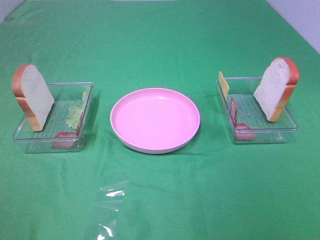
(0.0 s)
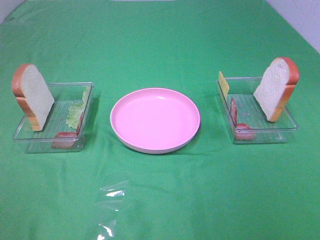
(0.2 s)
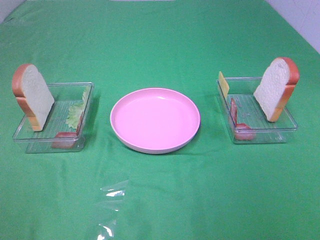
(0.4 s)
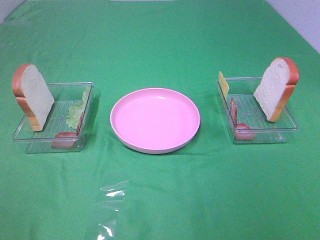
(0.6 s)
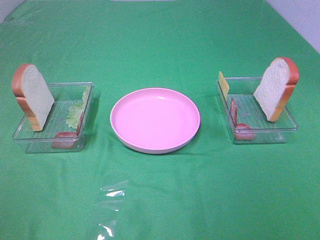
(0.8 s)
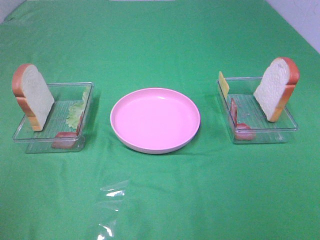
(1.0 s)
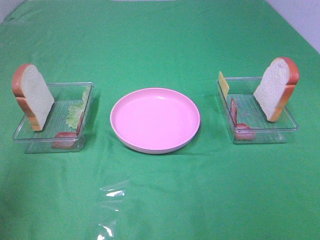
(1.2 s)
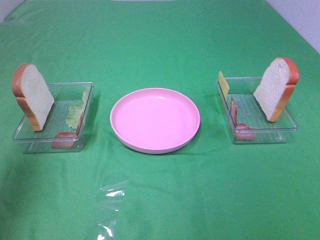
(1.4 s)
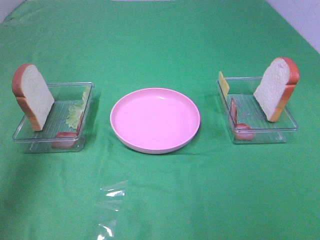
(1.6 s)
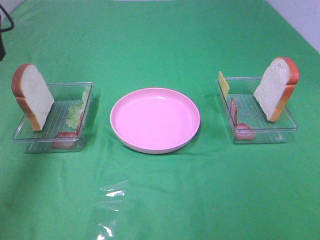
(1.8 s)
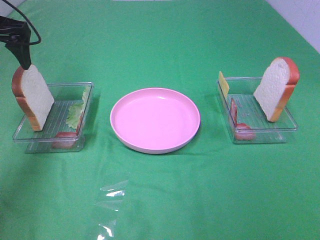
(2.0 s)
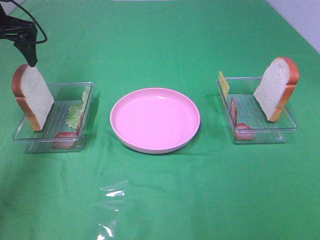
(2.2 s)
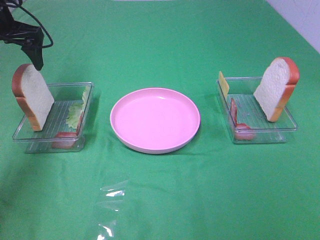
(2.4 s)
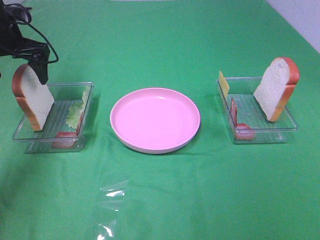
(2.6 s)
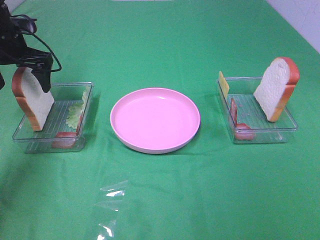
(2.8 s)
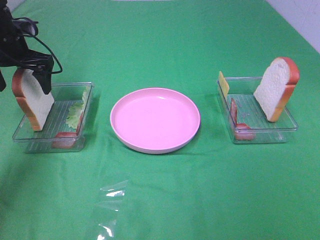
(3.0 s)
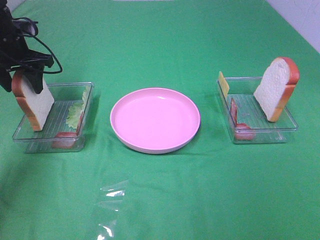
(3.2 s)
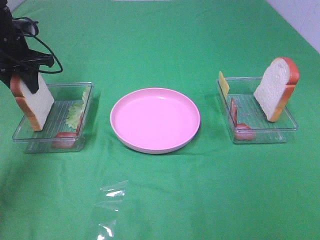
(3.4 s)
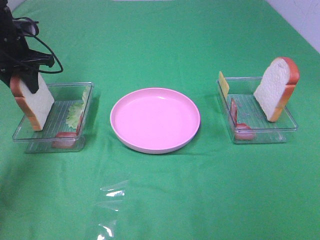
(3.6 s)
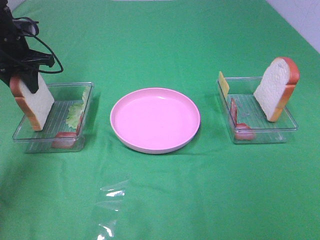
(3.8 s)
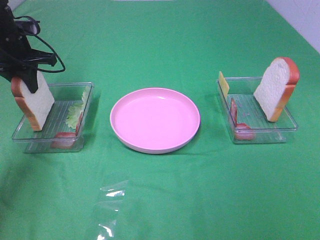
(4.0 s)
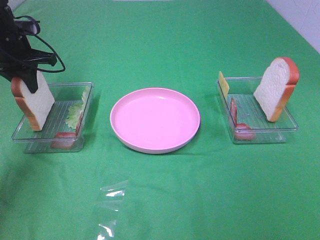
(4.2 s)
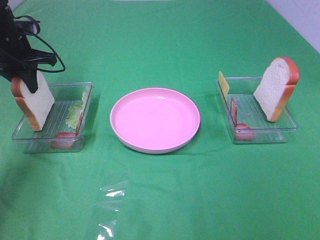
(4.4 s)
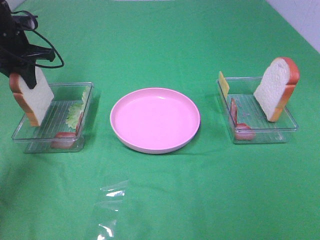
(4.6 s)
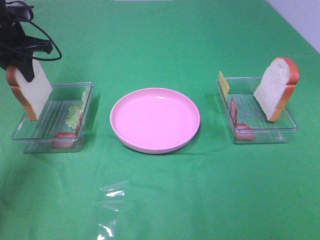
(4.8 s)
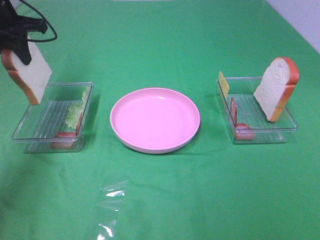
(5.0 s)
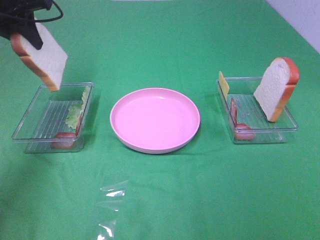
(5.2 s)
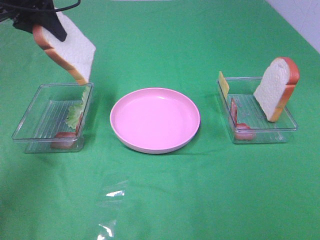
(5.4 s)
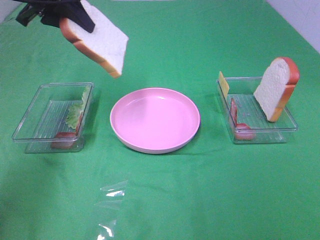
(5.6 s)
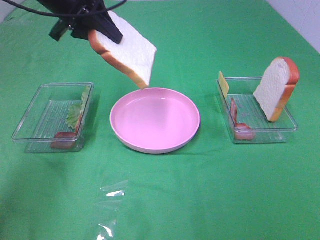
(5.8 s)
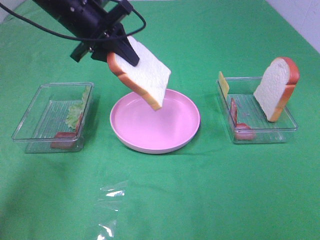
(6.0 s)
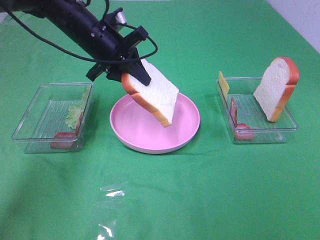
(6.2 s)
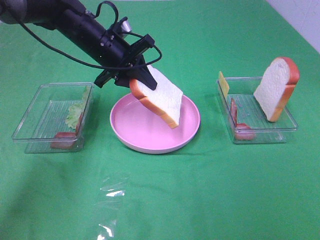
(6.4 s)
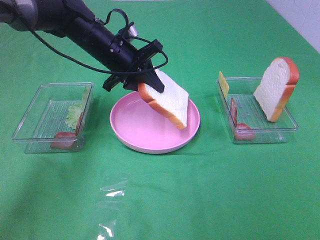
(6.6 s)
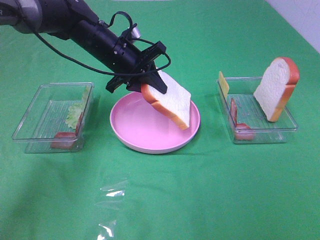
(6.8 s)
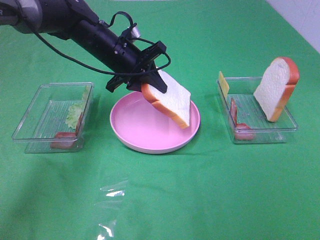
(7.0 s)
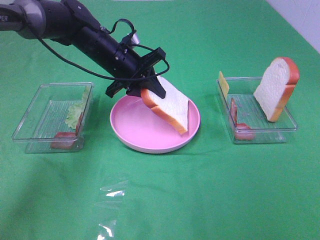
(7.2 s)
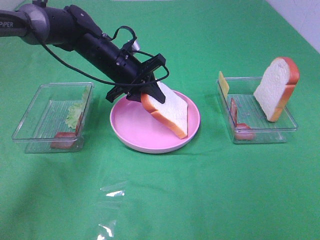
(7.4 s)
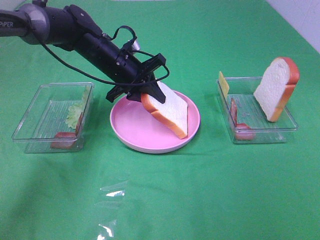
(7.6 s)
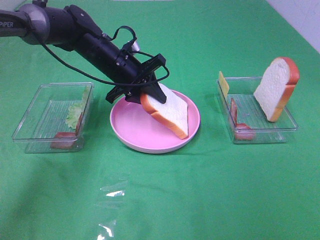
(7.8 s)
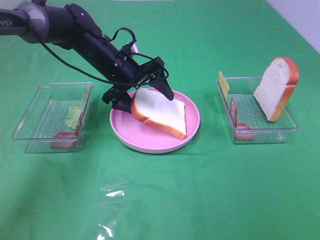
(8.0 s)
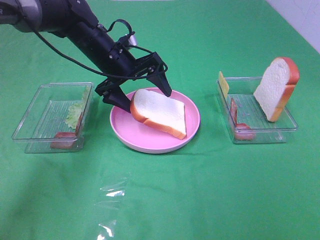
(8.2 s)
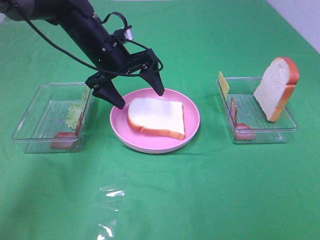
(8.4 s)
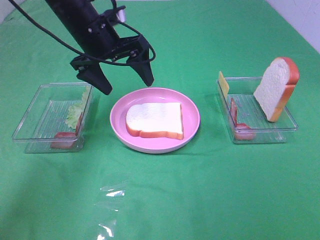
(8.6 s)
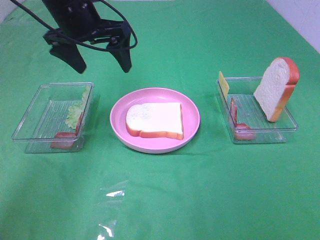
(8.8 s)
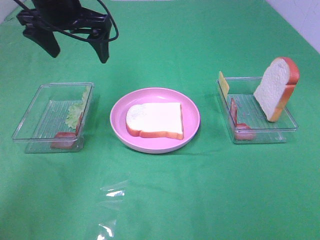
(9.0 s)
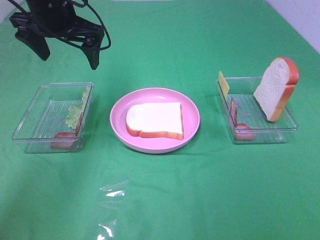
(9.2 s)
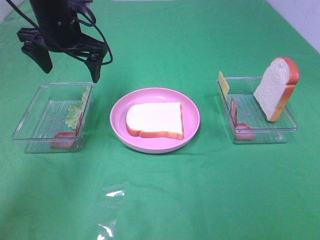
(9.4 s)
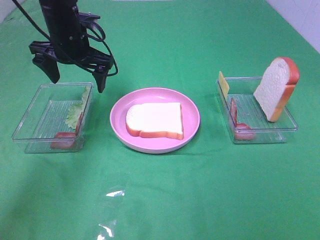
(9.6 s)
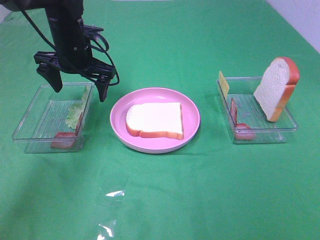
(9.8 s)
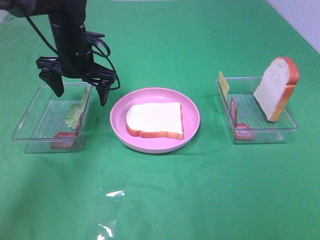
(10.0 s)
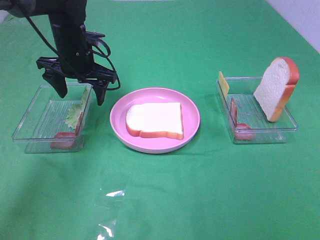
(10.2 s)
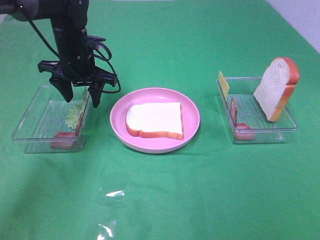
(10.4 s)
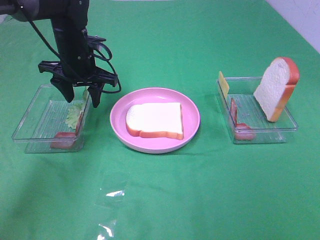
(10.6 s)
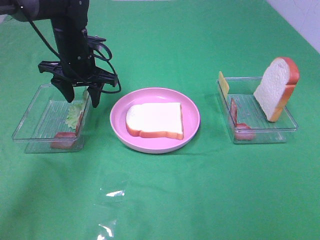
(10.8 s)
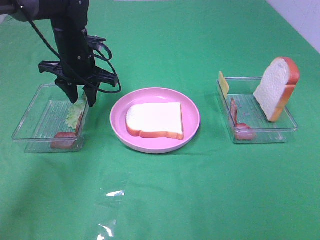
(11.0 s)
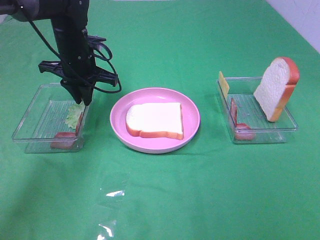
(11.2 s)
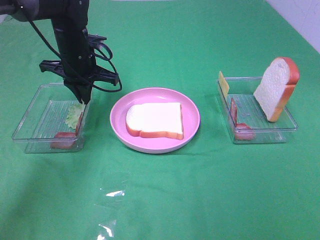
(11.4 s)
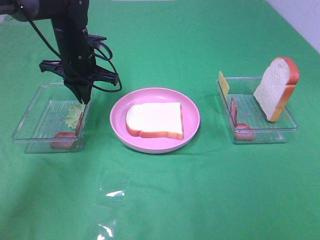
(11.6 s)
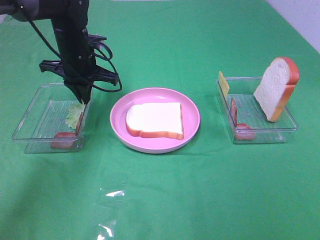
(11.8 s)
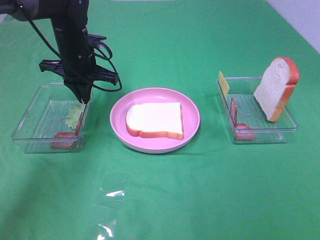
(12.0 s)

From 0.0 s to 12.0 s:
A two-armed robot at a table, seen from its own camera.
Task of the whole recording: Make sandwiches.
Step, from 0.0 s to 4.0 s: Left hand:grab the bread slice.
Step, from 4.2 s to 8.4 s: Left hand:place the bread slice on the plate.
Step, from 8.6 s to 11.6 s: Left hand:grab the lettuce slice.
From 0.0 s to 1.6 s: The left gripper heads forward, covering roughly 30 cm.
From 1.6 s to 3.0 s: The left gripper shifts approximately 20 cm forward and downward.
From 3.0 s to 4.4 s: The left gripper closes.
From 4.4 s to 6.0 s: The left gripper is displaced to the right by approximately 15 cm.
From 6.0 s to 7.6 s: The left gripper moves downward, approximately 10 cm.
From 7.6 s to 9.0 s: The left gripper shifts some 15 cm upward and to the left, and opens.
From 9.0 s to 10.4 s: The left gripper travels downward by about 10 cm, and closes its fingers.
From 10.4 s to 12.0 s: The left gripper closes up.

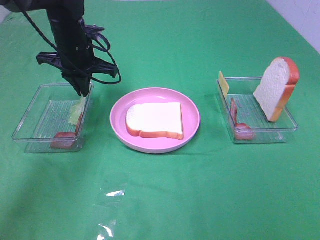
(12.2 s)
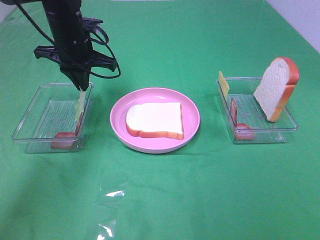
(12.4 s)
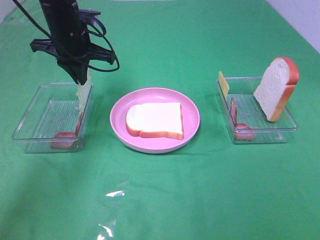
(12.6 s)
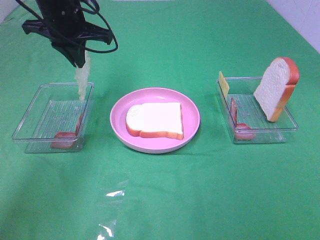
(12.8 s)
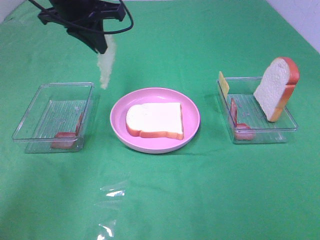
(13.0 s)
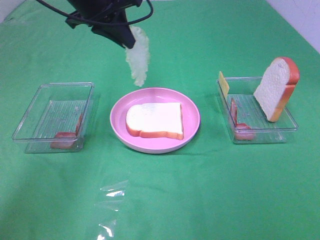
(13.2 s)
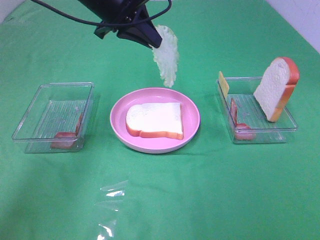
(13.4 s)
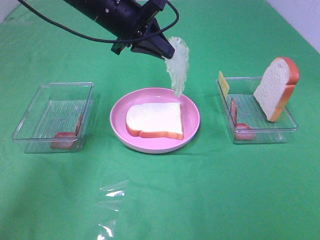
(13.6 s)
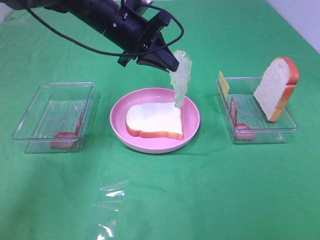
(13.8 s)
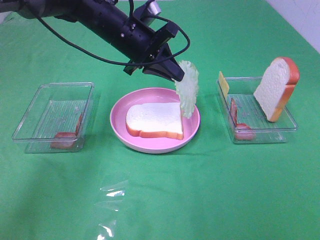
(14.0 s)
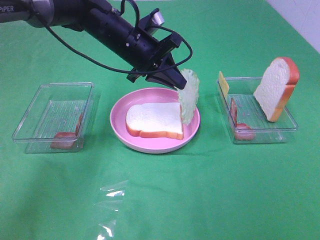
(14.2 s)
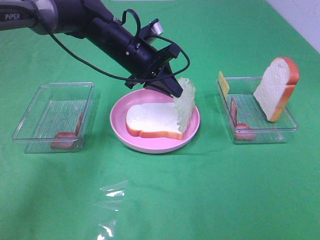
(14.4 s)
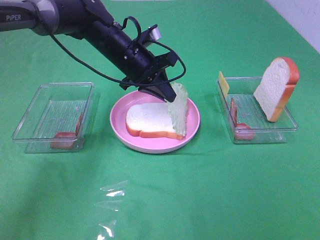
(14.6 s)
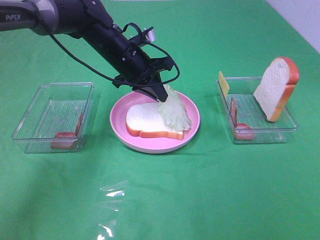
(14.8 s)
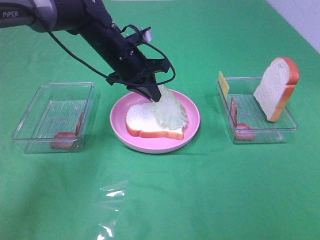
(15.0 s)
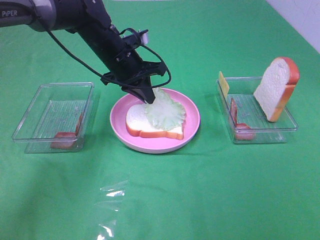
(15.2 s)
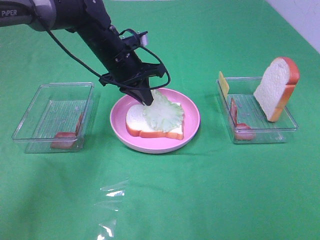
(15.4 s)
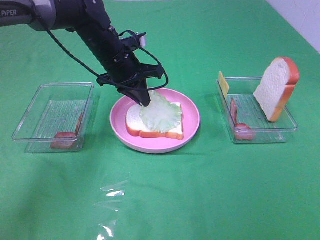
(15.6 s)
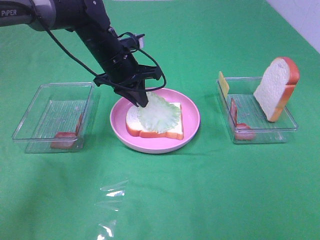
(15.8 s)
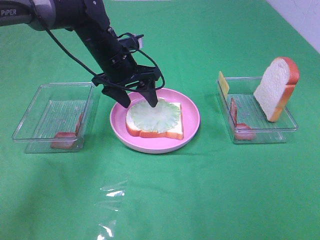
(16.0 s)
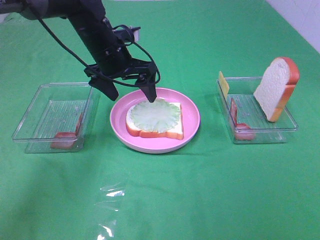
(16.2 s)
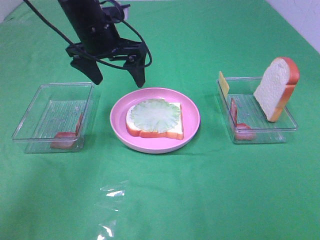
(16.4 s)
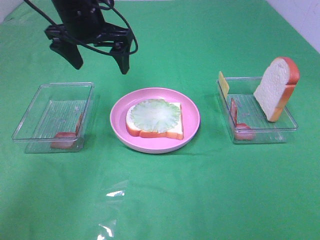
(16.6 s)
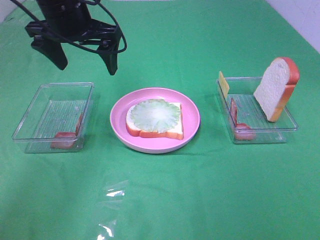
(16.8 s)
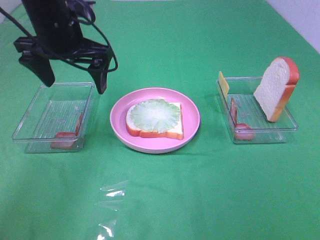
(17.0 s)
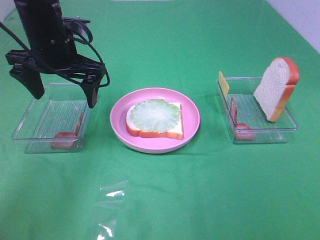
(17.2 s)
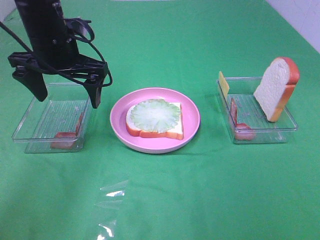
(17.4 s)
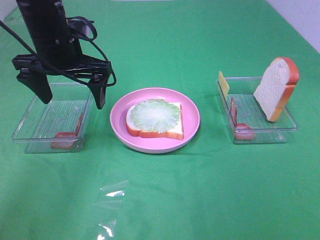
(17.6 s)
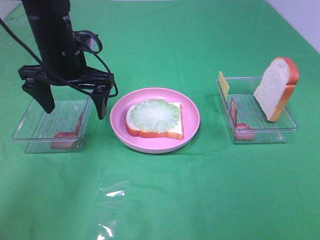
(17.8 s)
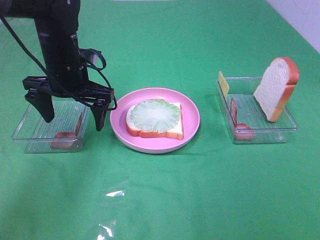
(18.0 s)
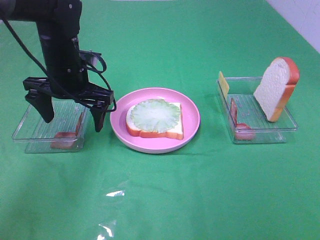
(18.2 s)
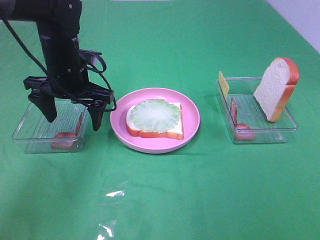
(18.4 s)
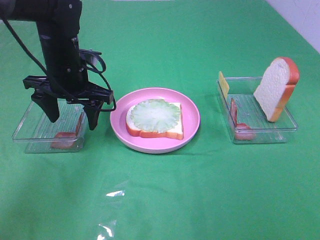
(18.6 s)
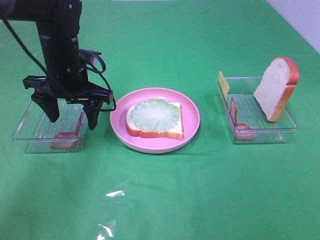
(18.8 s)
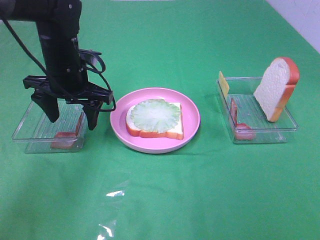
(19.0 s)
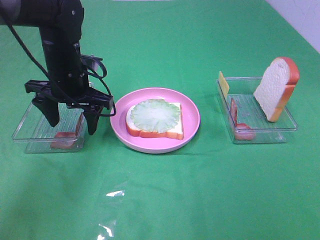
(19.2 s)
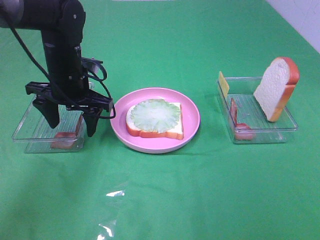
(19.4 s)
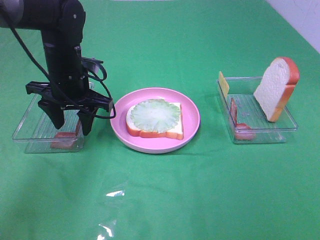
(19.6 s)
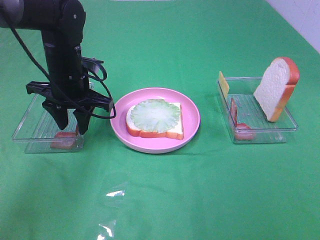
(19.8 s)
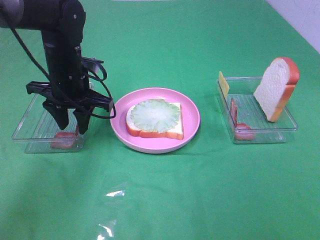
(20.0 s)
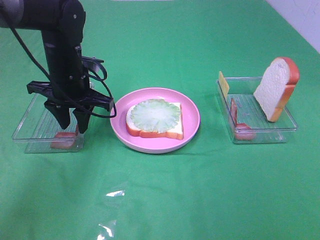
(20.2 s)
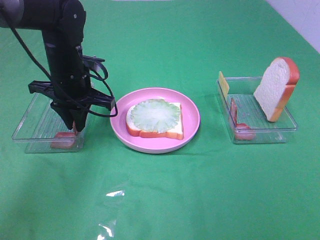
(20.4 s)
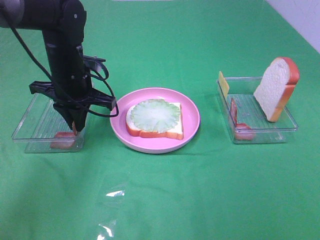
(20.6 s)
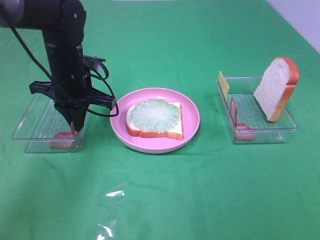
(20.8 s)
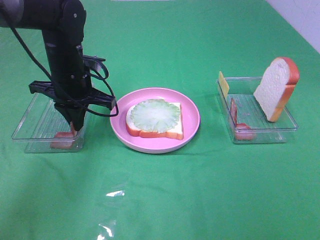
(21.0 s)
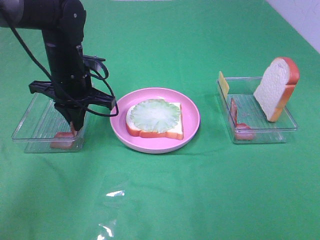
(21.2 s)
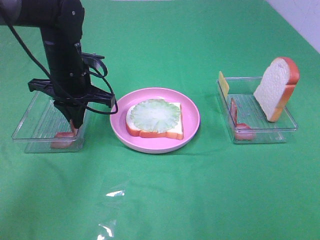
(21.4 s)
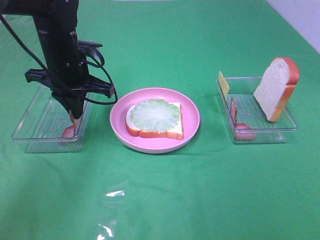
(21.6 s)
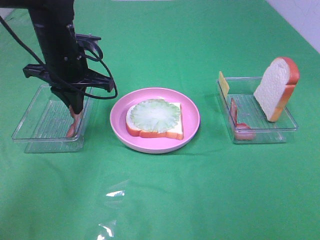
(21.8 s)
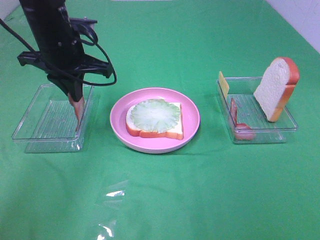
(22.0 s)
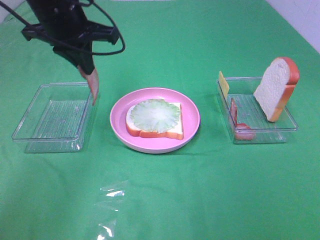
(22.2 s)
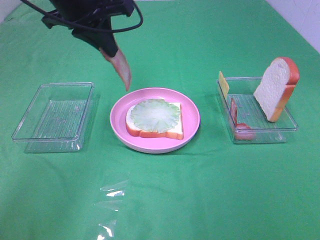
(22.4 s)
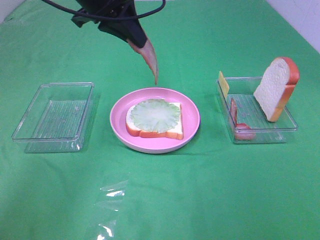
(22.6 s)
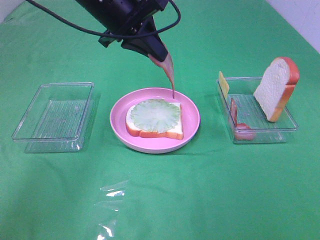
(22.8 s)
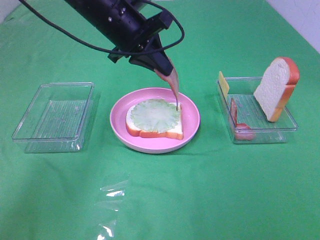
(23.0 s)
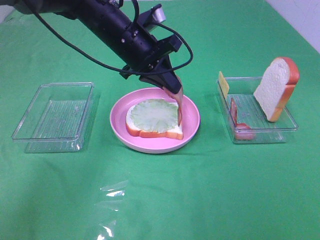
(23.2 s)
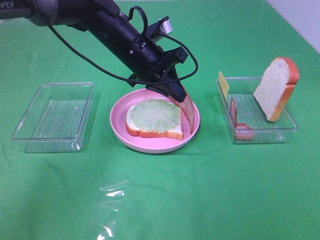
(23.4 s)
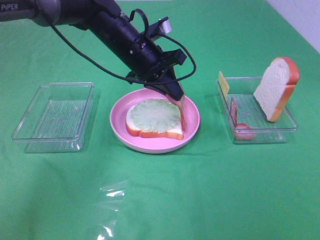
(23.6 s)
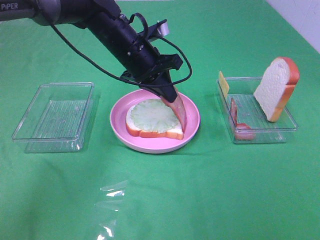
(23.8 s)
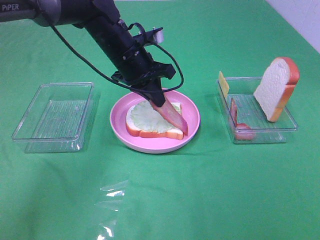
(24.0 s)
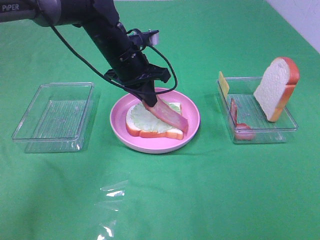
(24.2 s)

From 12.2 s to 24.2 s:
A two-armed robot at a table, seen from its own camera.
Task of the whole recording: Make sandwiches.
Step, from 12.2 s to 16.0 s: Left hand:place the lettuce slice on the bread slice.
Step, from 16.2 s to 21.0 s: Left hand:grab the bacon.
From 12.2 s to 13.8 s: The left gripper heads to the right, covering about 10 cm, and travels upward and back again, about 10 cm each way.
From 13.8 s to 15.2 s: The left gripper moves downward, approximately 5 cm.
From 15.2 s to 16.6 s: The left gripper shifts some 10 cm upward and to the left, and opens.
From 16.6 s to 18.2 s: The left gripper goes roughly 10 cm downward.
From 18.2 s to 19.8 s: The left gripper closes its fingers.
From 19.8 s to 21.2 s: The left gripper closes.
From 21.2 s to 22.6 s: The left gripper moves upward, approximately 15 cm.
From 22.6 s to 24.2 s: The left gripper goes about 15 cm downward.